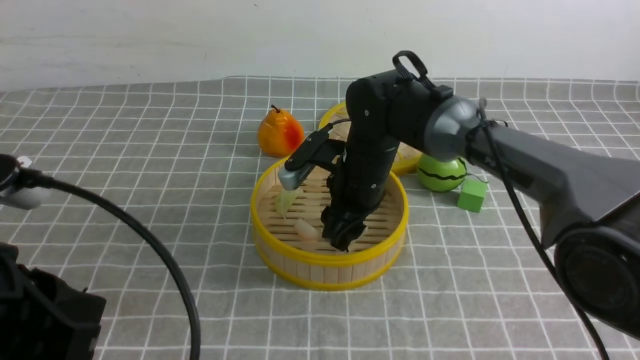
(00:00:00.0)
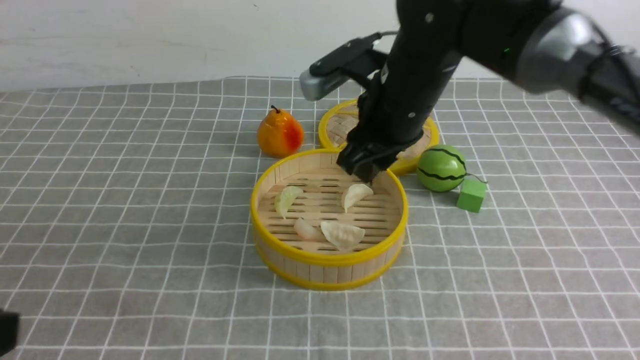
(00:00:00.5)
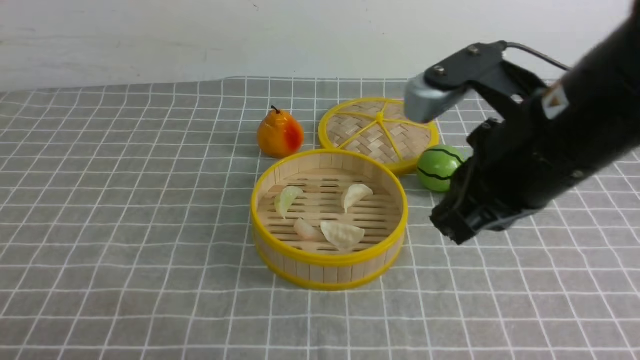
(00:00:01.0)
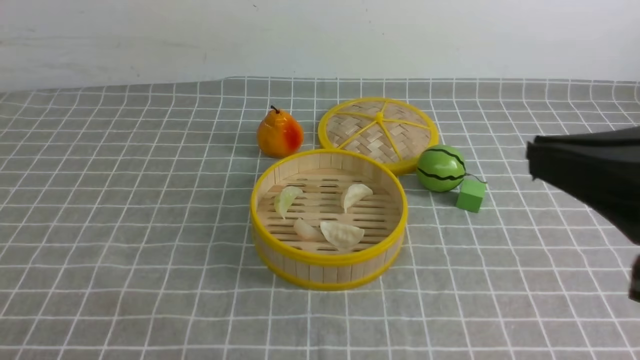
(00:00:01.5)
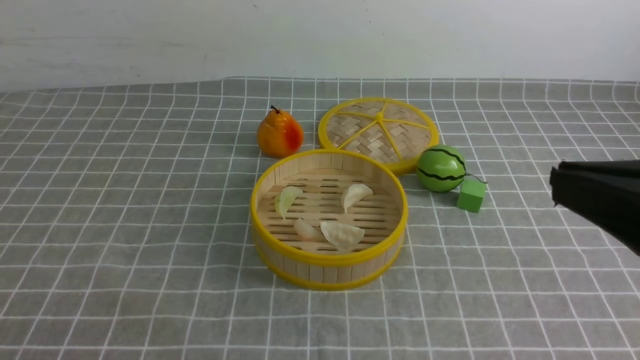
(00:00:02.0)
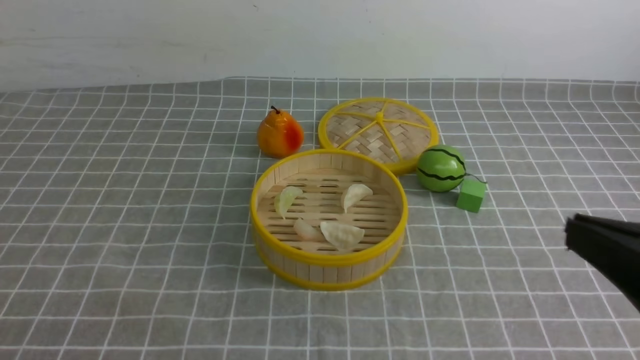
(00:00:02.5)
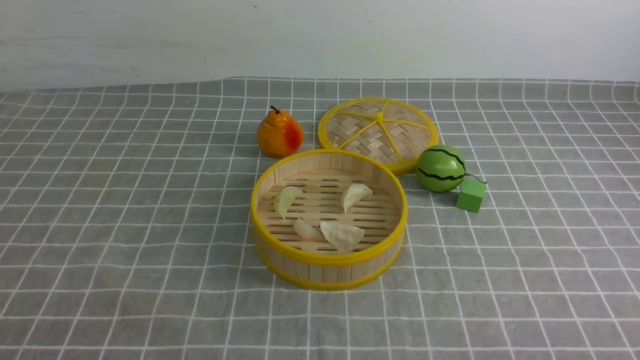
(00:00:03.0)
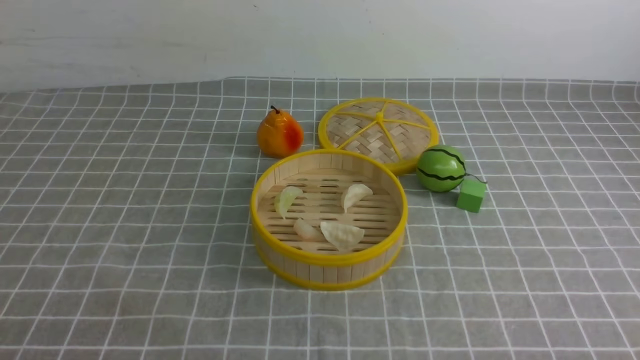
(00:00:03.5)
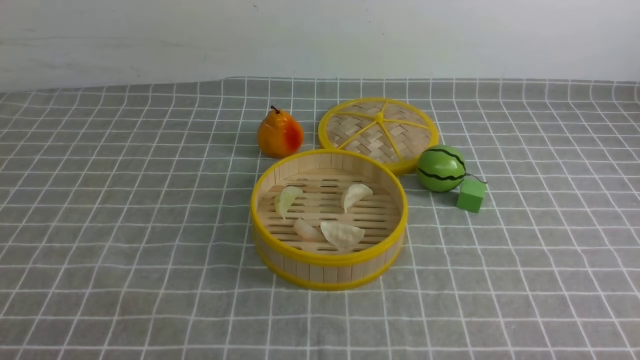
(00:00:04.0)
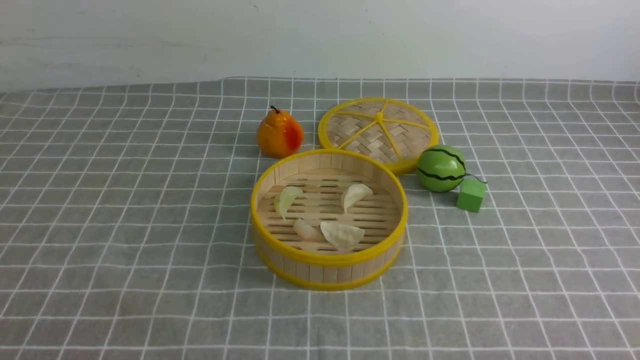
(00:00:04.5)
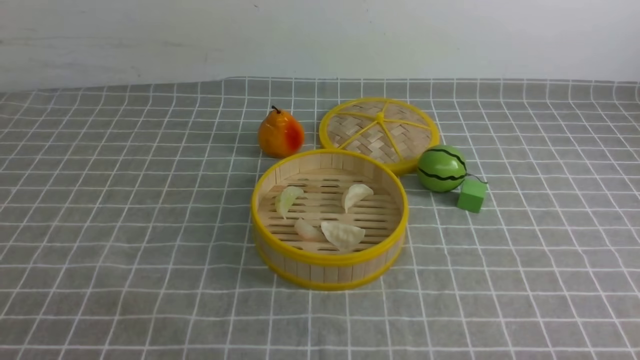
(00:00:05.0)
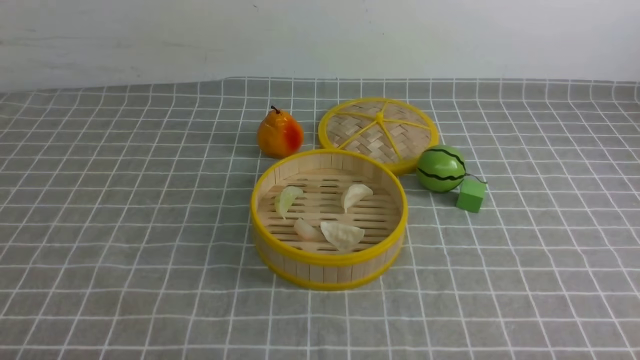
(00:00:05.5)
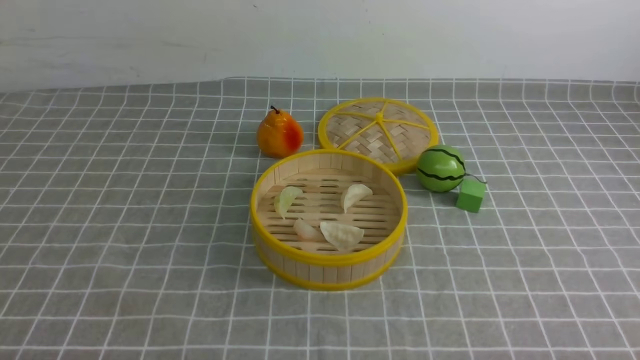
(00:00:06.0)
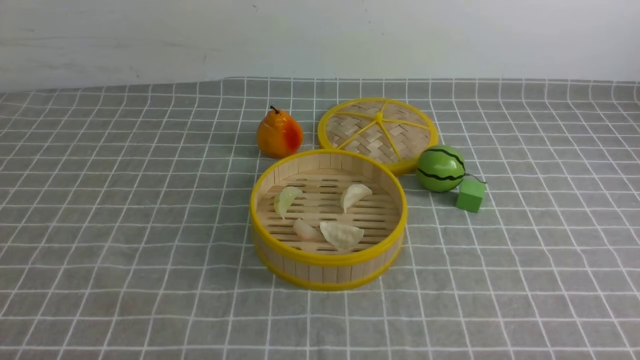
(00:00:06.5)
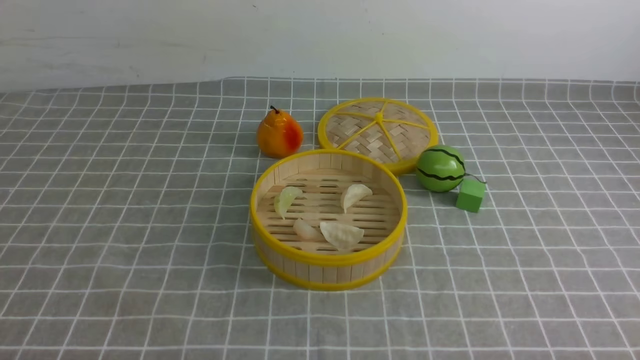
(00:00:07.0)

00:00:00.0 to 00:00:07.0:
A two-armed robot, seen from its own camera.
Task of the whole recording: put the dumplings into the steamer on the table with the grey tablecloth.
00:00:00.0 to 00:00:02.0: The right gripper goes some 40 cm backward, upward and to the right, and closes; the left gripper travels backward by roughly 10 cm.
00:00:02.0 to 00:00:03.5: The right gripper goes approximately 25 cm downward and to the right.
